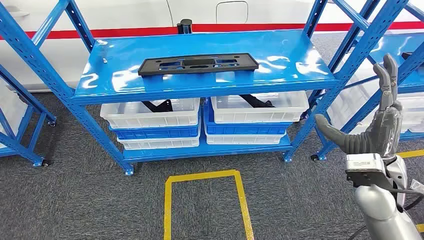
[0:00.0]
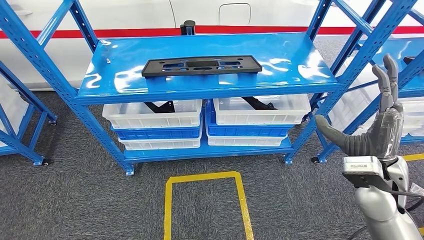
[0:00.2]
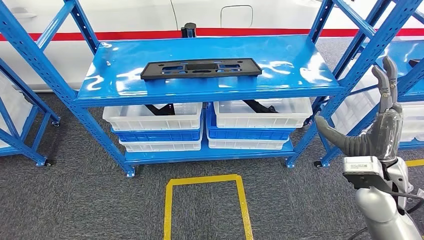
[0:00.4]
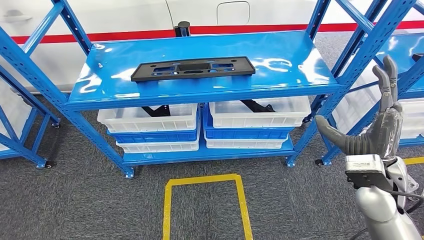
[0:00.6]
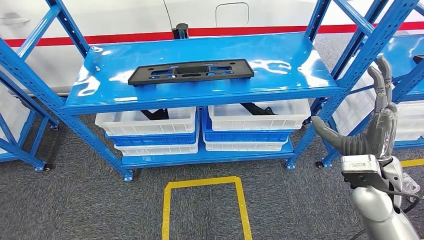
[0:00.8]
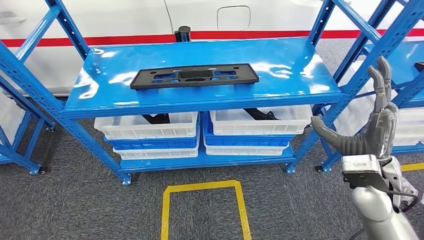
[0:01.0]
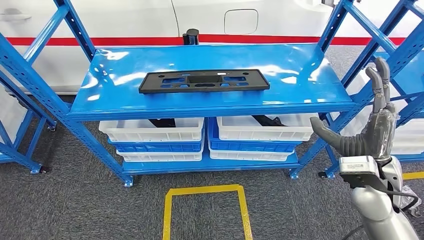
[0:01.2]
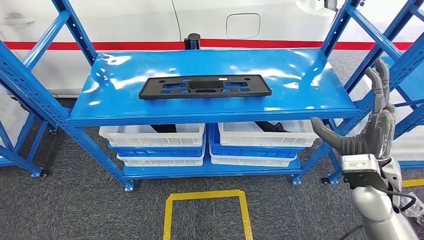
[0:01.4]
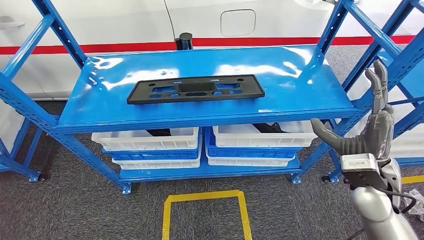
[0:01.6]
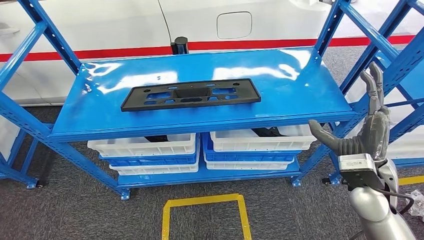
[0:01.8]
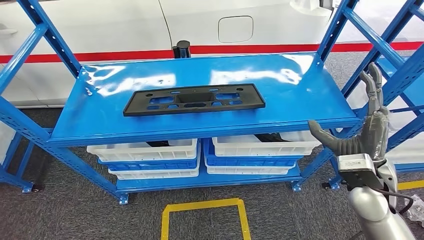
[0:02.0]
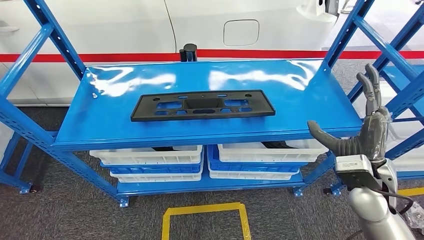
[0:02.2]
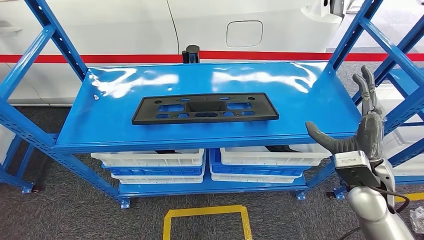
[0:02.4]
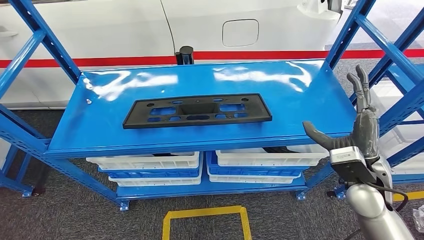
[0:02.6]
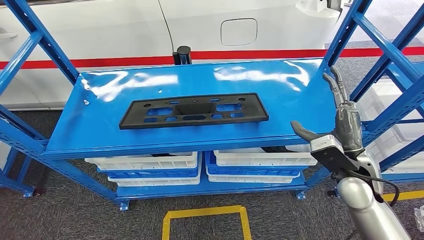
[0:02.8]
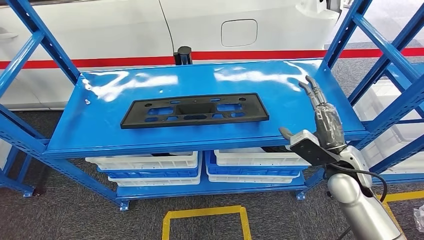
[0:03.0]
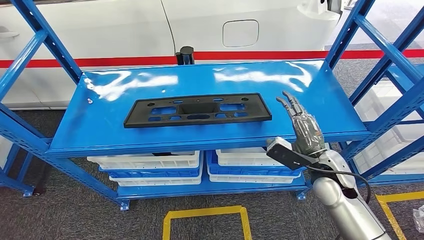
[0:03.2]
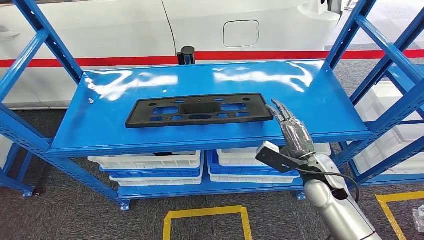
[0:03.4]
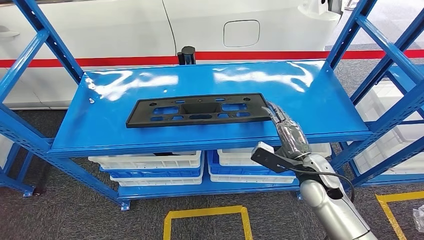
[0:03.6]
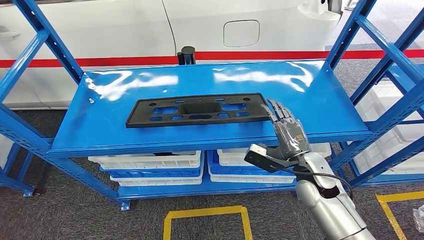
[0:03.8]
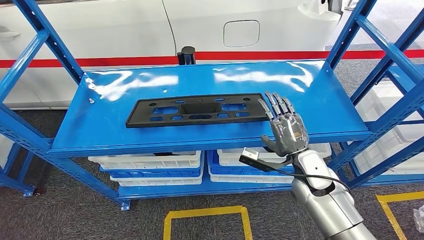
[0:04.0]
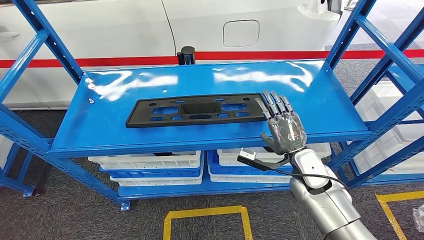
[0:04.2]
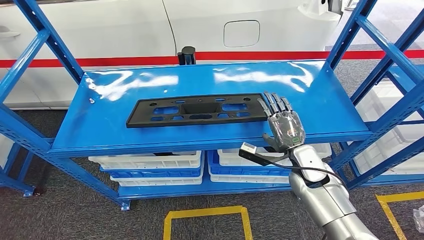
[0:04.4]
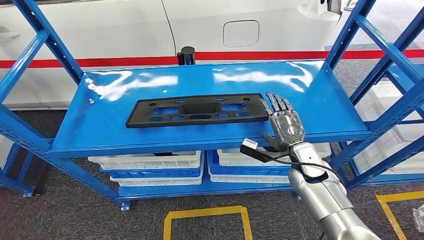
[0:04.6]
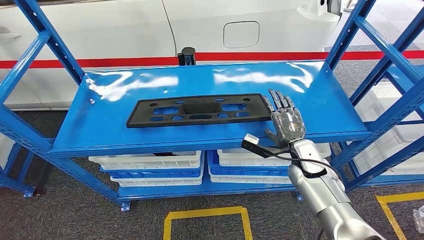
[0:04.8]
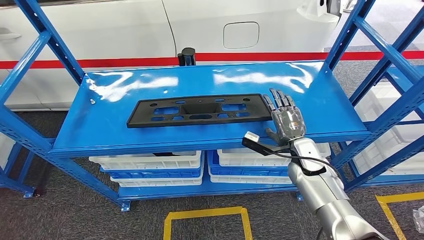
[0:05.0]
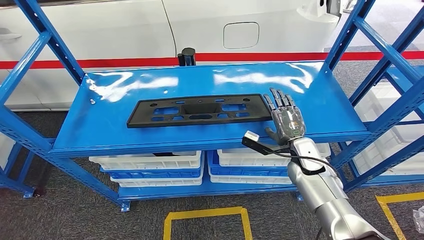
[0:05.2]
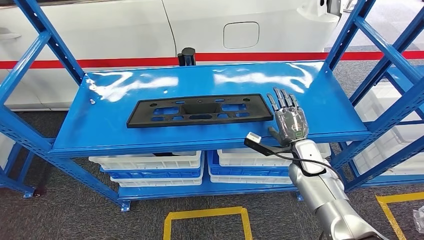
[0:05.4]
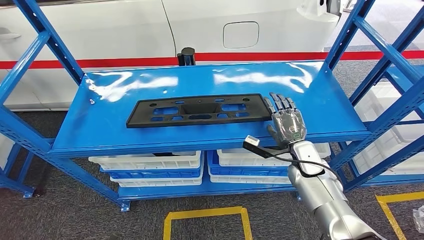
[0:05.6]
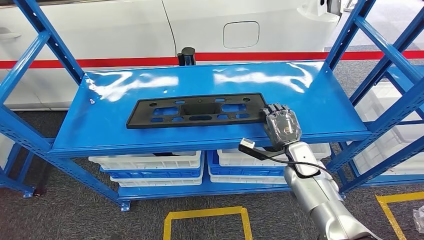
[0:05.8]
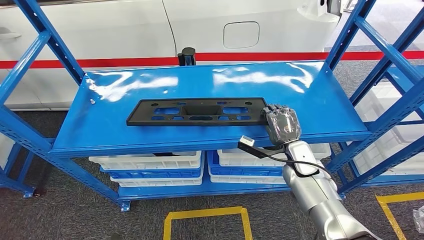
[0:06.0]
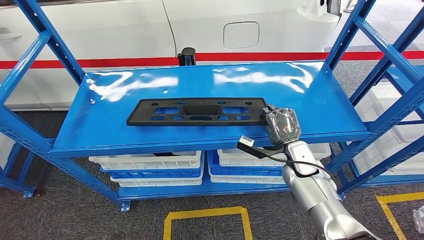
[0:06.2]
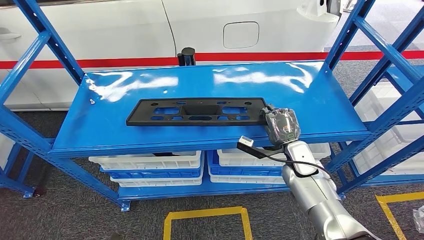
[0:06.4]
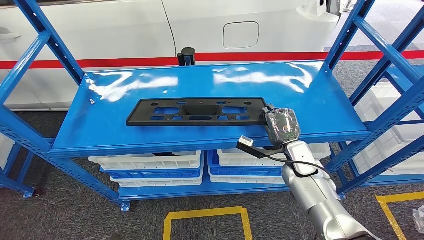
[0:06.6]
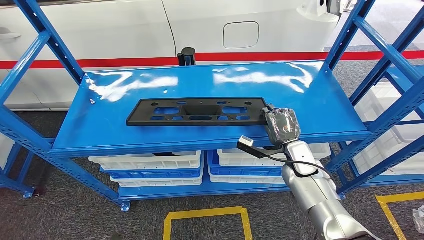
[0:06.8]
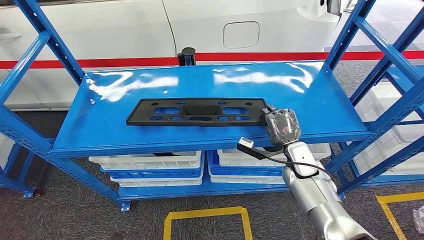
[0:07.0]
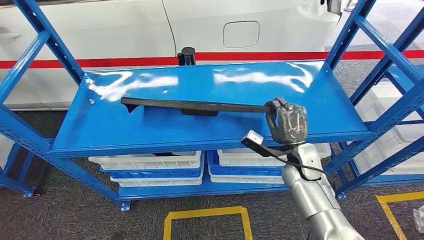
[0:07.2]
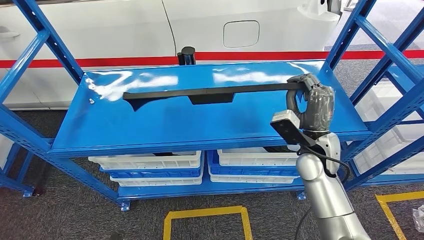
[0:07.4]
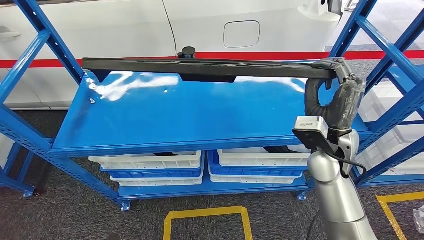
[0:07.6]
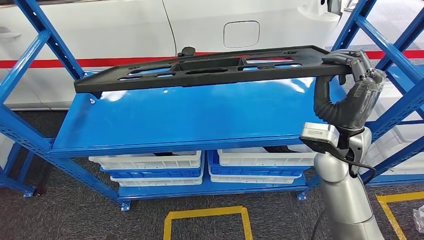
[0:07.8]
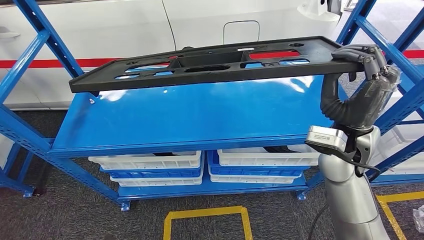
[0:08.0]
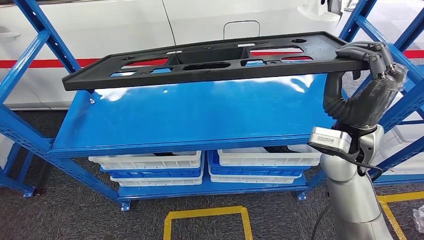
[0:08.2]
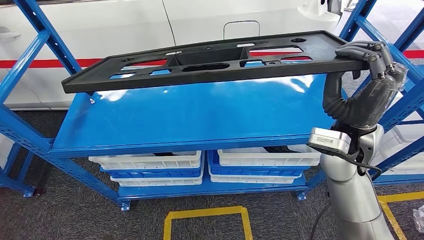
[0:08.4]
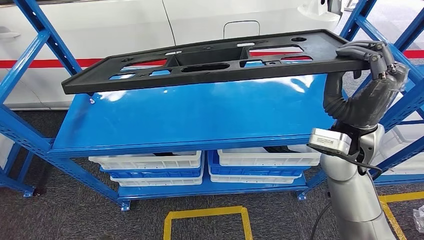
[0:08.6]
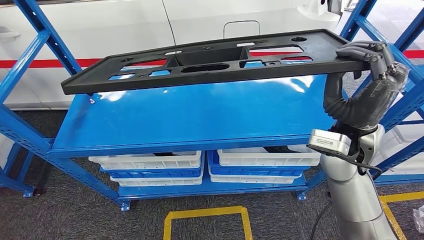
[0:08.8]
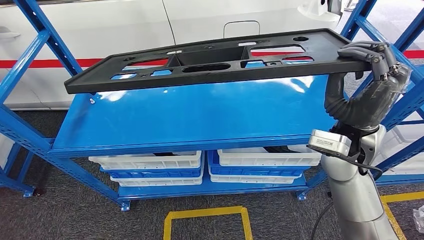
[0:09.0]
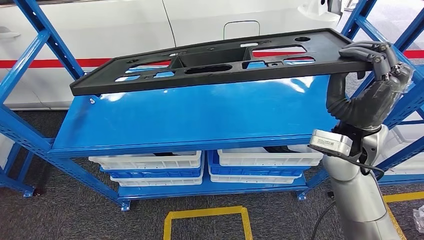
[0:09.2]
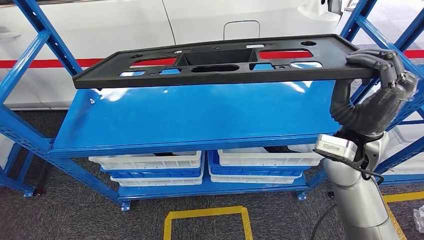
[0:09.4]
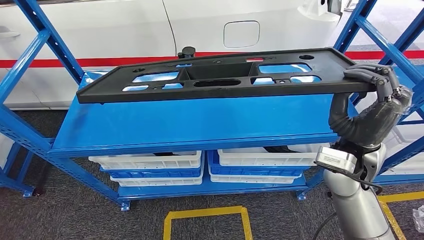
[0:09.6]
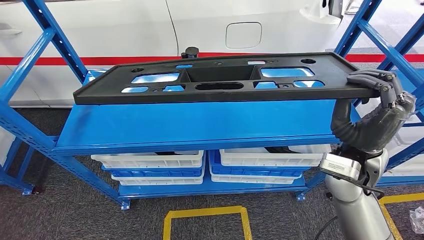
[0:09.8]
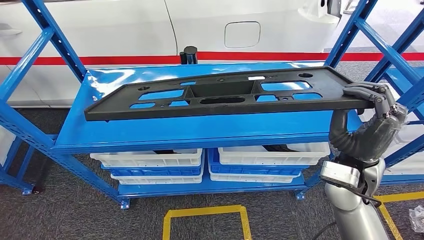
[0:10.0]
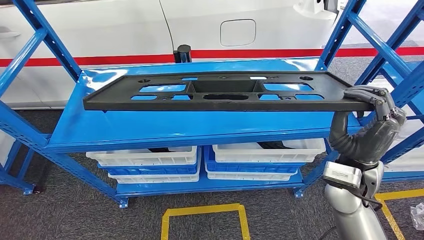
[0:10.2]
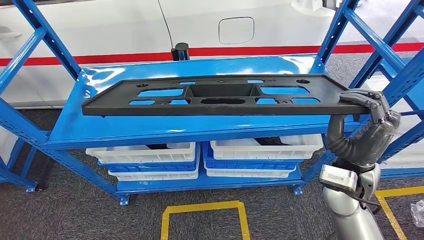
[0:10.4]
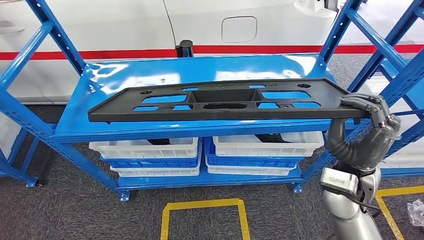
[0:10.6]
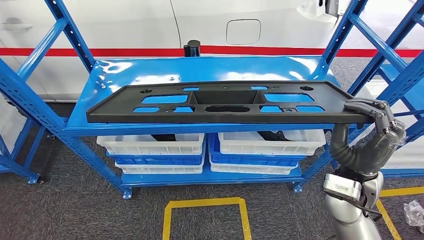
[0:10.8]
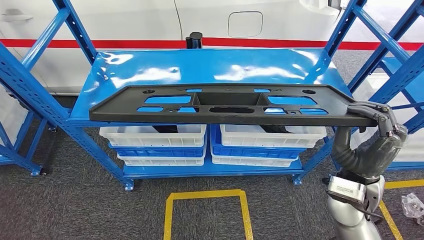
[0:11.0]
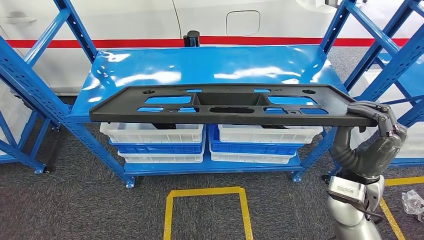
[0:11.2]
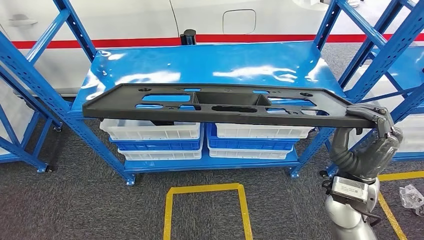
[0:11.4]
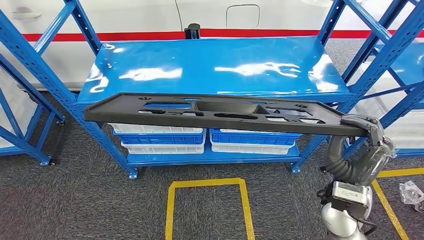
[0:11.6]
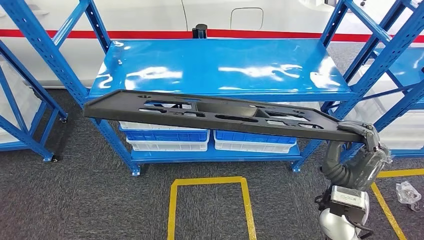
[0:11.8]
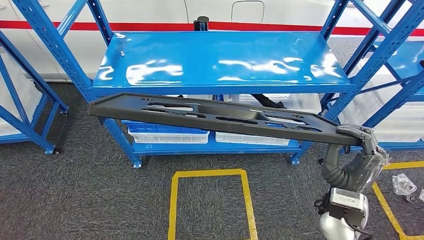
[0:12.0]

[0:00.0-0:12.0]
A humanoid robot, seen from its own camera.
Step, 0:00.0 to 0:11.8: Pick up the large material from the shelf.
0:04.4 to 0:06.0: The hands make only small movements.

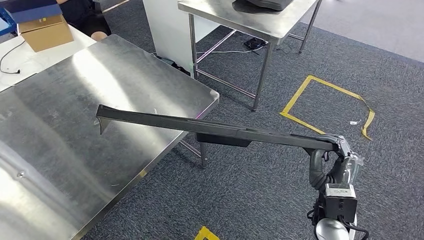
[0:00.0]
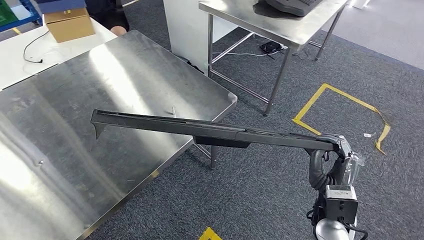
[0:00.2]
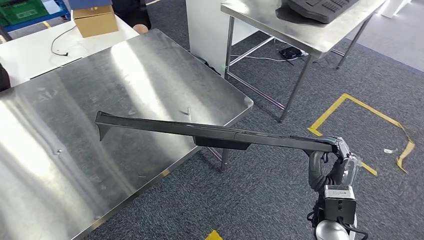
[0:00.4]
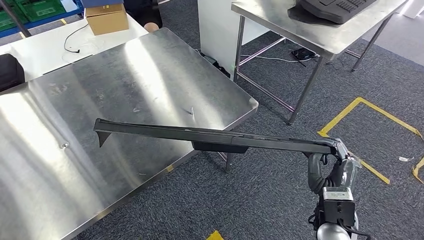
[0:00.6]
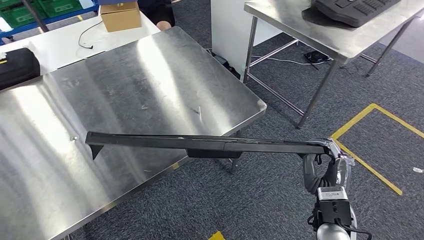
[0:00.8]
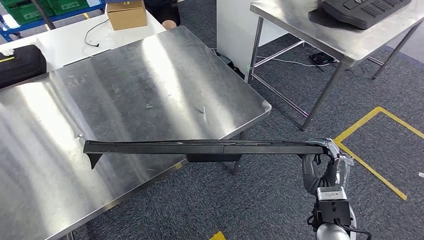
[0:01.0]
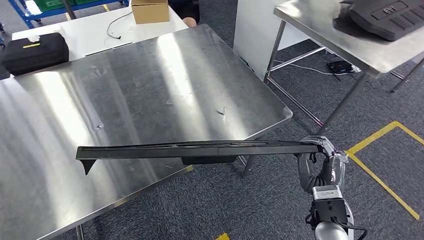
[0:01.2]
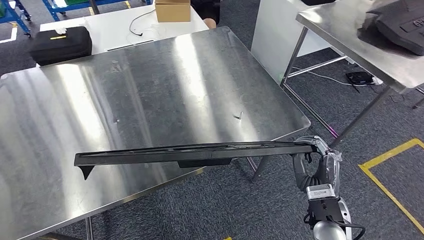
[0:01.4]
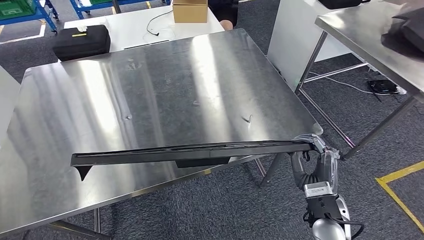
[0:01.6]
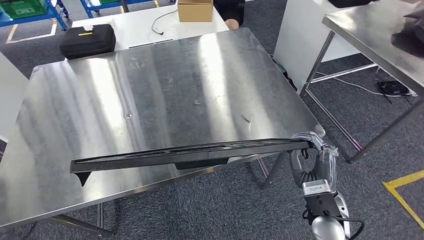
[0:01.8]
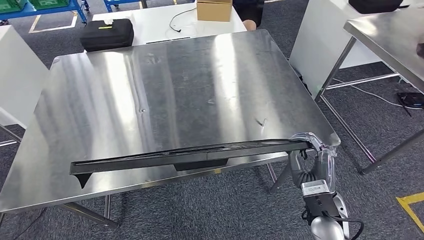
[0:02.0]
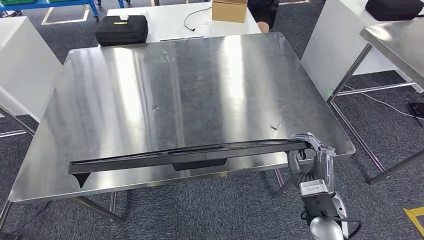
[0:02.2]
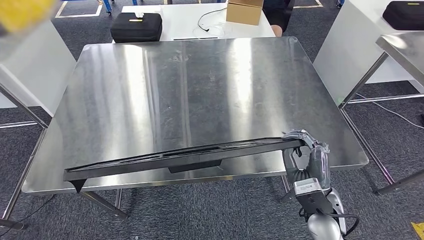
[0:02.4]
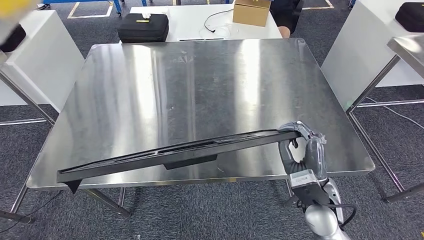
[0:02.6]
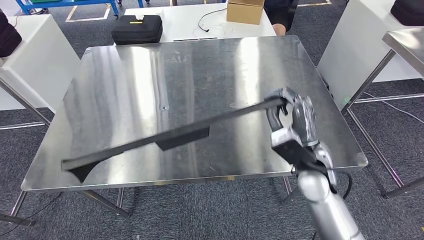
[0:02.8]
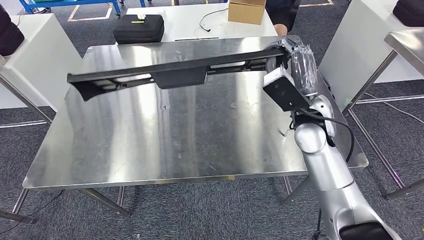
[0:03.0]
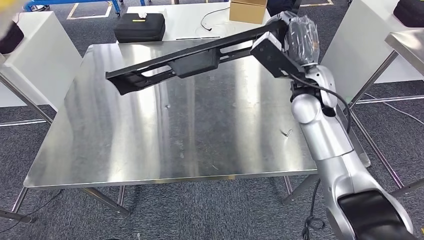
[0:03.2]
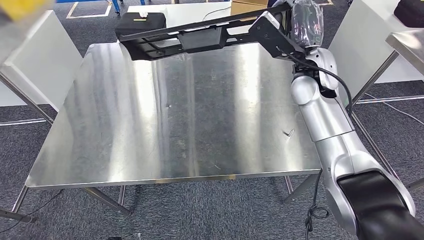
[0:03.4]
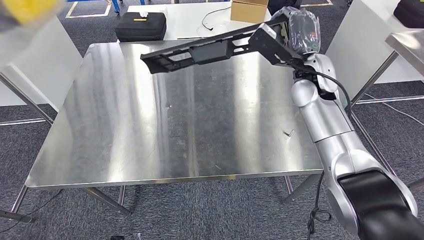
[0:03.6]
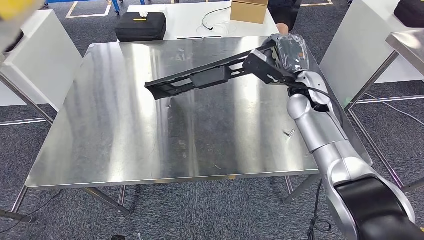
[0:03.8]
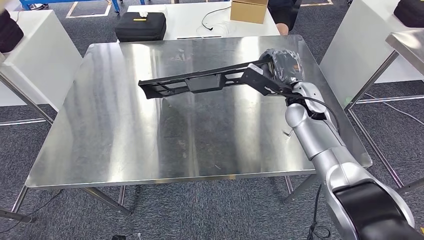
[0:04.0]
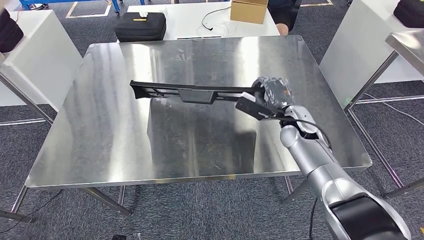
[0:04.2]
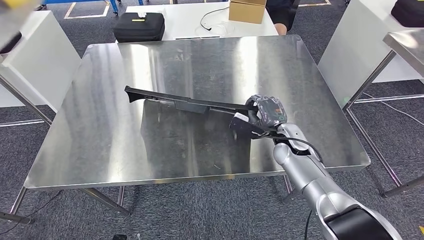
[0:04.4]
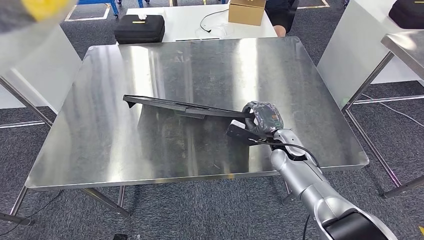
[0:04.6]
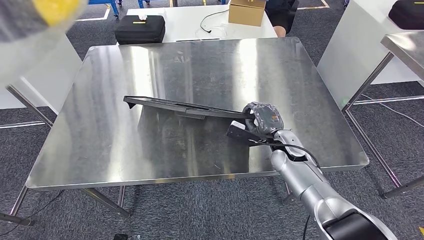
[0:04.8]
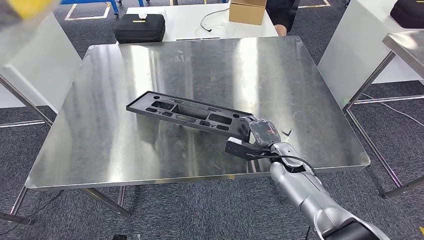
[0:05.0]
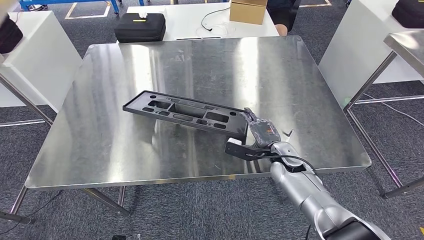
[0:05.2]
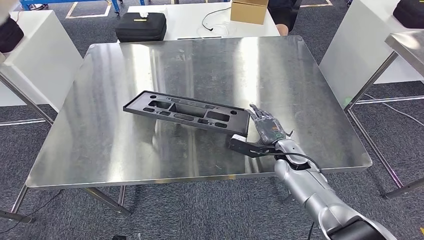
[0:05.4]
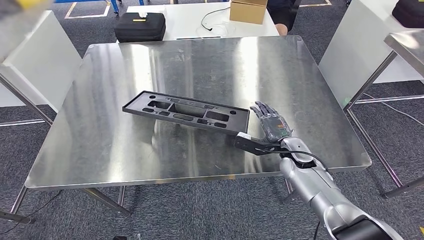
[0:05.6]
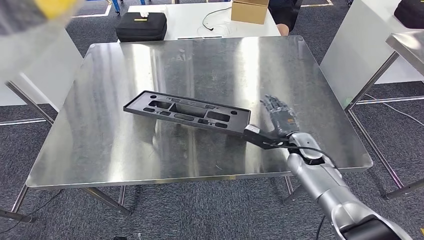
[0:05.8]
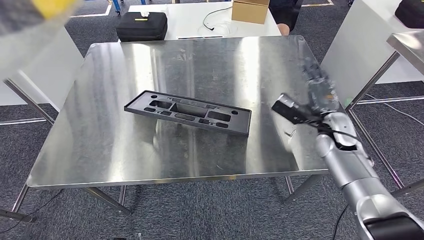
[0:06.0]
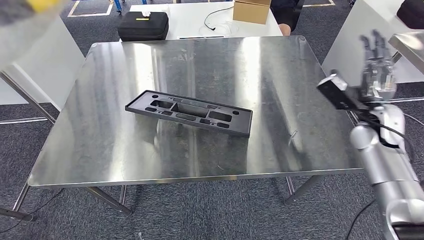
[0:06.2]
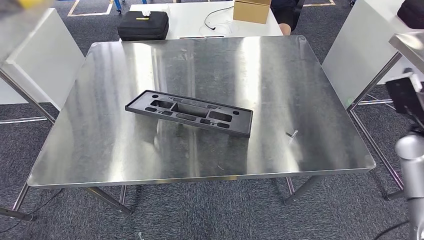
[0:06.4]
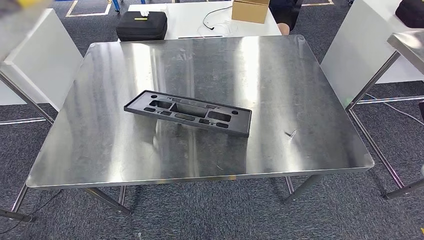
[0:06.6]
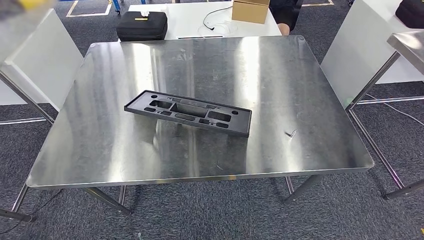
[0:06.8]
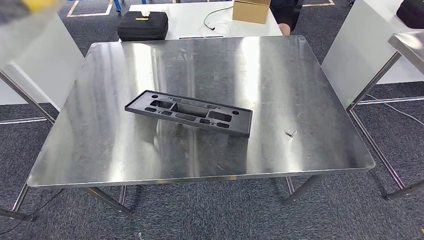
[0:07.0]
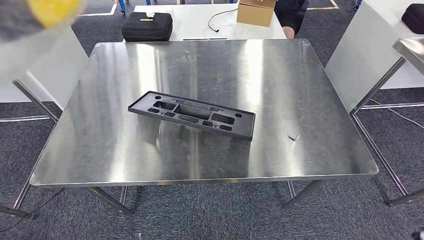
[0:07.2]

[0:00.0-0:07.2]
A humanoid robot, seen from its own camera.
0:04.4 to 0:05.8: The hands move only a little.
